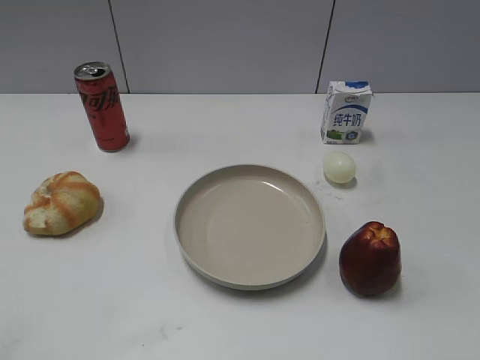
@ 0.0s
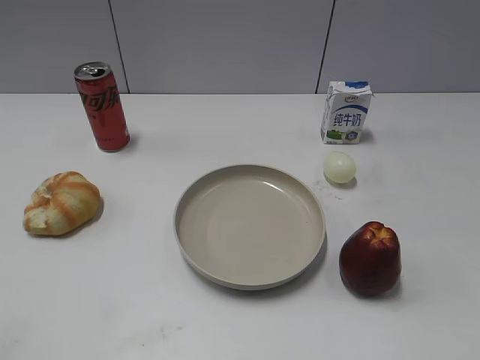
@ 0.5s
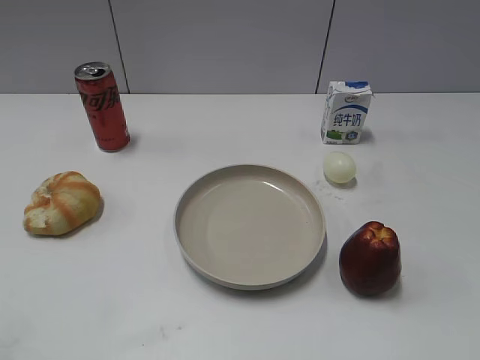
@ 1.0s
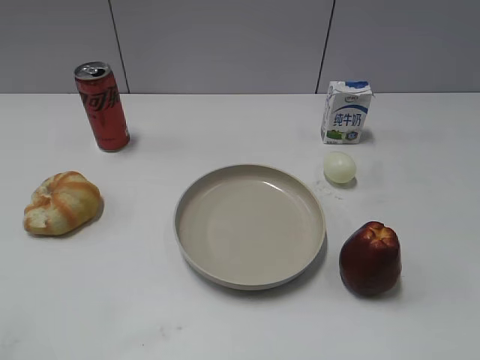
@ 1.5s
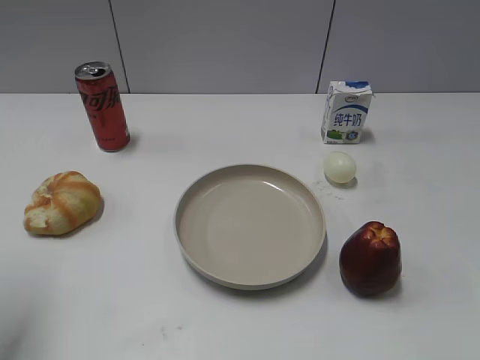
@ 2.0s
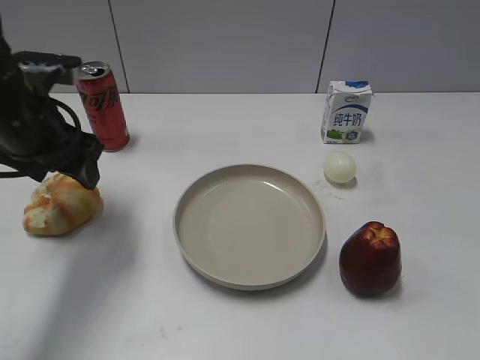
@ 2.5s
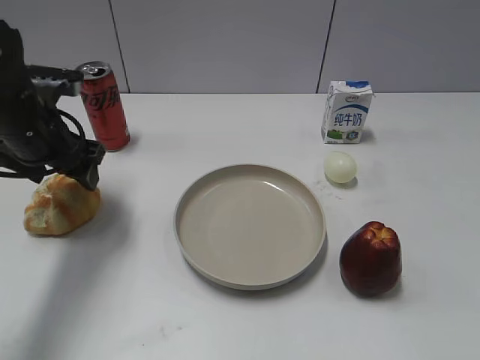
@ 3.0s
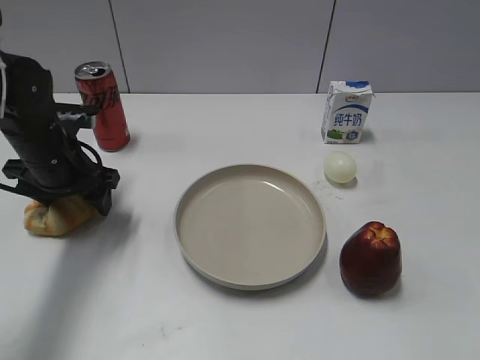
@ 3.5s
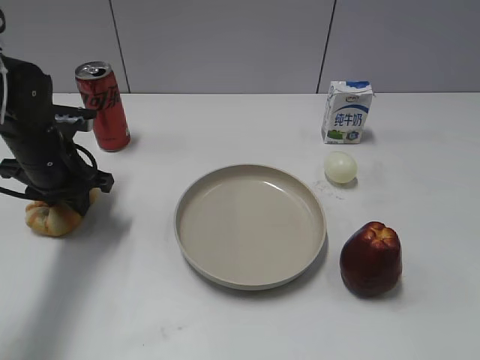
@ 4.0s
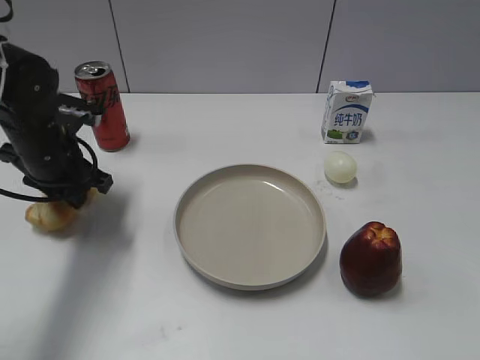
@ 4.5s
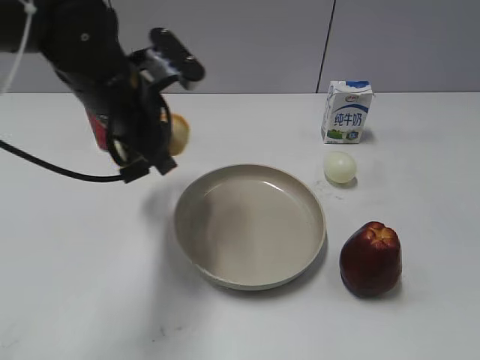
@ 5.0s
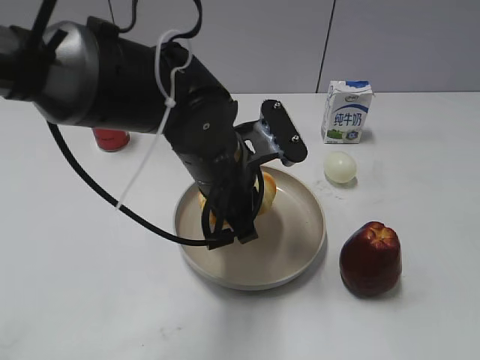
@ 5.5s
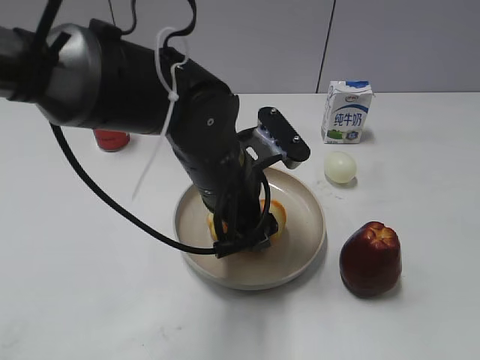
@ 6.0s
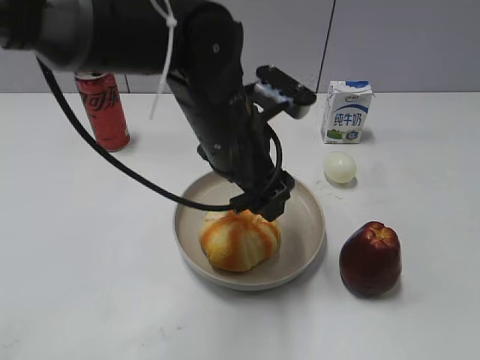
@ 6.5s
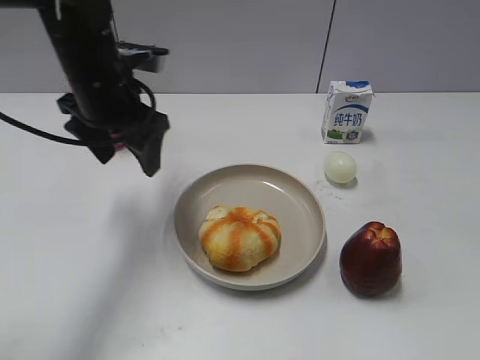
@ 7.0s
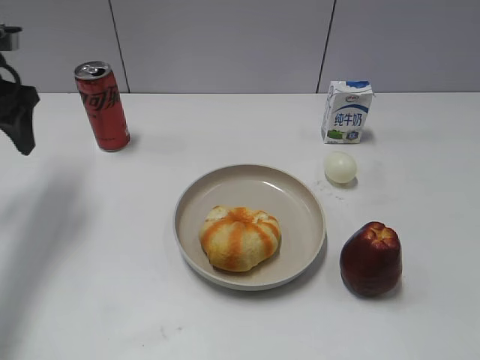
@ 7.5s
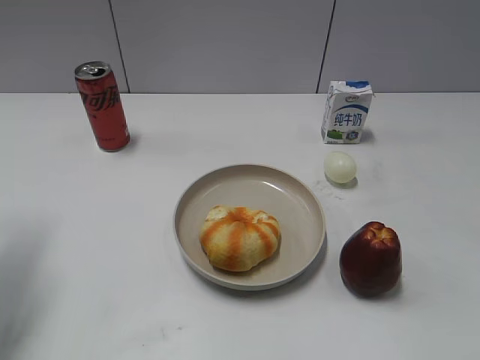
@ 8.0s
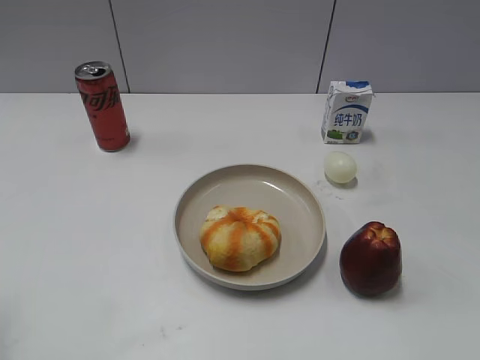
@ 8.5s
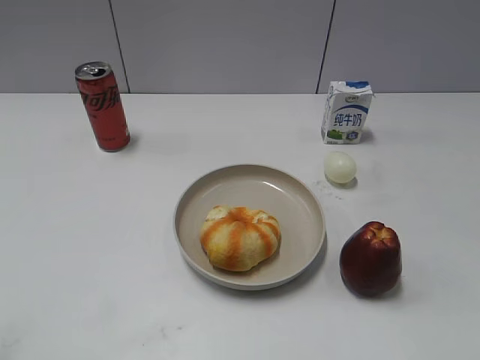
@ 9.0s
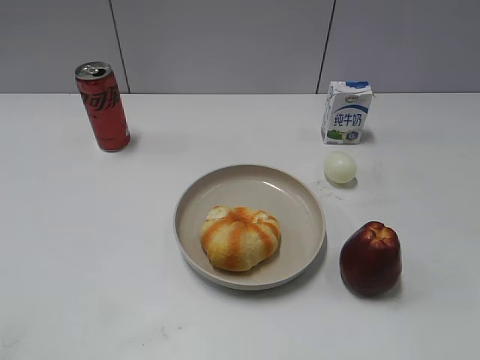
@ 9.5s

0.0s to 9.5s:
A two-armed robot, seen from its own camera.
Step, 1.5s to 4.0s: Grasp the round bread with left gripper.
Step, 4.5s to 6.5s: Place the round bread on the plate with left gripper.
2.0s to 4.0s: The left gripper moves forward, downward and to the right, some 30 cm.
4.0s to 5.5s: The left gripper goes about 20 cm to the right and backward, and closes up.
5.5s to 7.5s: The left gripper heads to the left and forward, covering about 25 cm, and opens up.
7.5s to 9.5s: The left gripper goes some 35 cm backward.

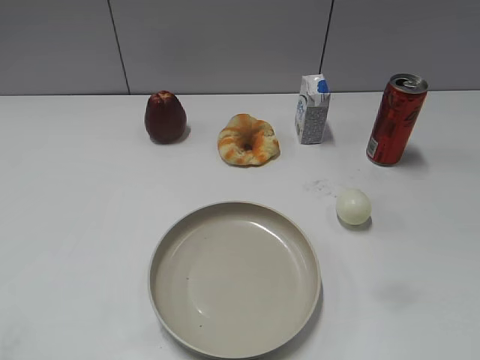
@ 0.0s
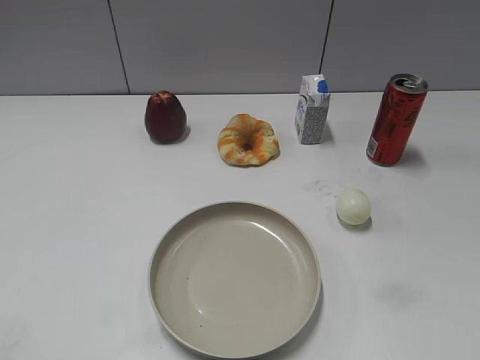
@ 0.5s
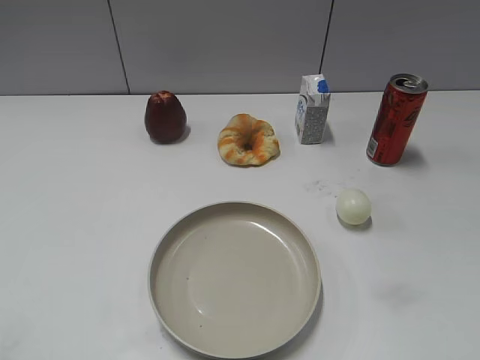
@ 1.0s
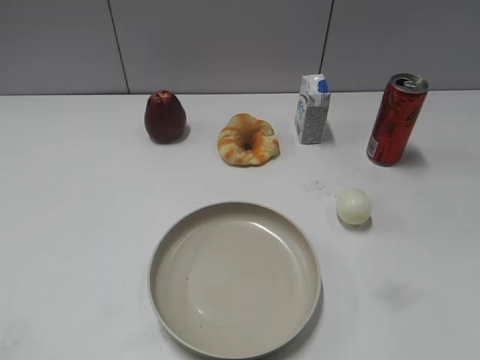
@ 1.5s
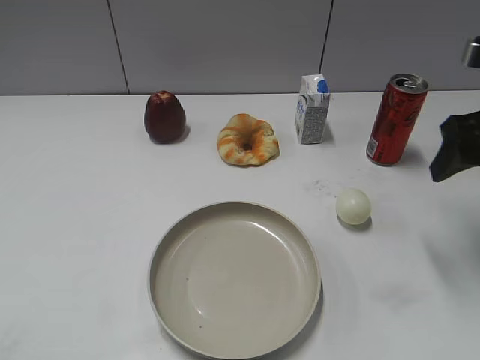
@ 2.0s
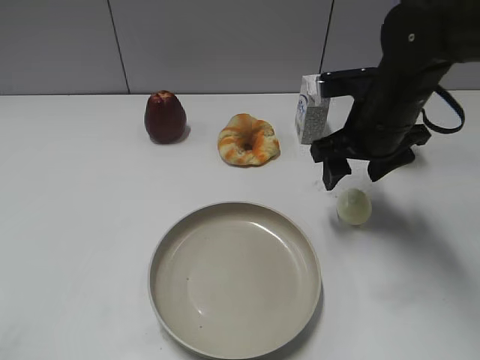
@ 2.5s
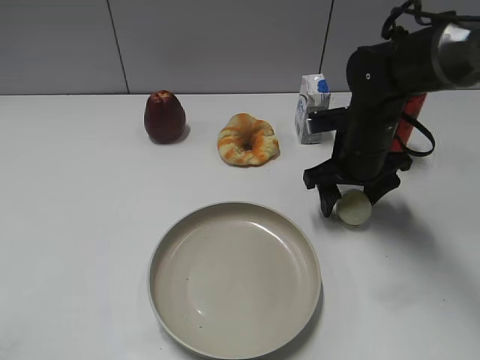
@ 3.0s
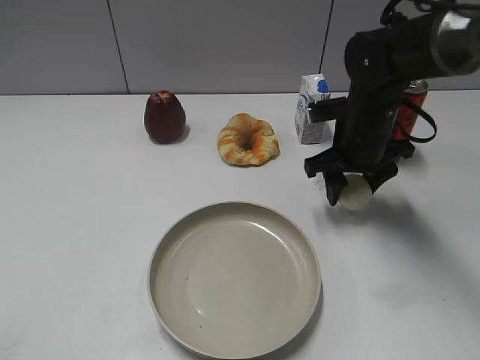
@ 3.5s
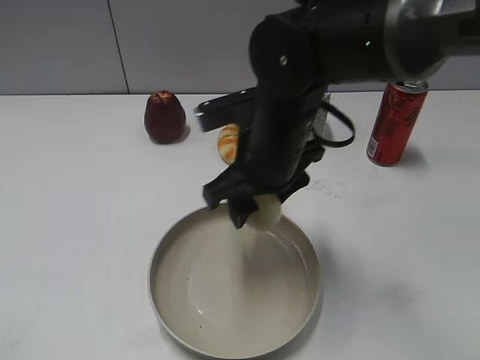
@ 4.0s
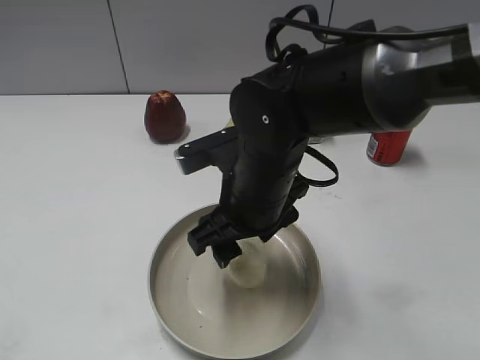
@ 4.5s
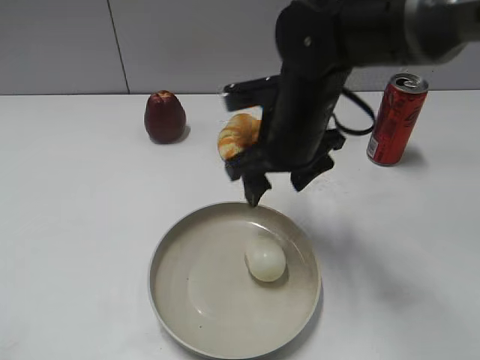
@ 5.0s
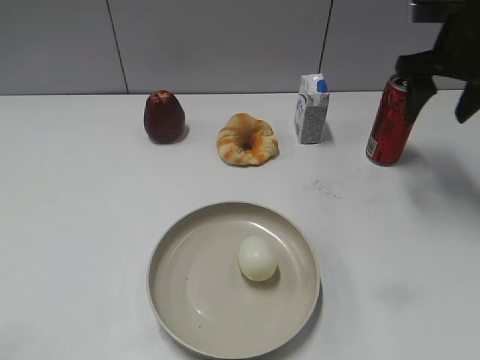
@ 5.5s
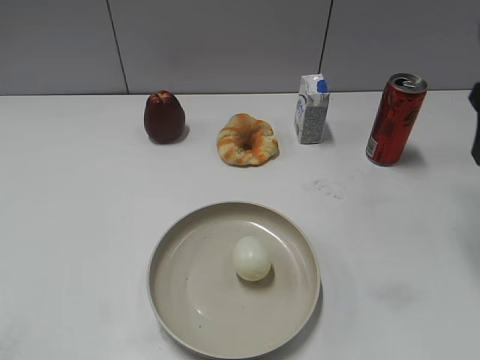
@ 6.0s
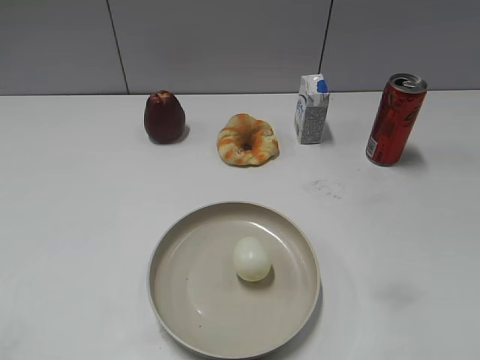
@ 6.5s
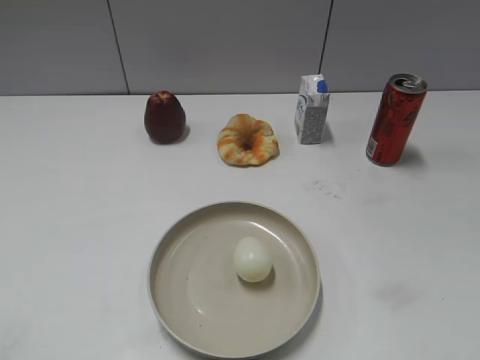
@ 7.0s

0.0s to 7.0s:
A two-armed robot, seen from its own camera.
Step, 1.0s to 3.0s: Grasp the egg with right gripper.
Step, 3.5s to 4.5s: Place the egg on the plate with right gripper.
2.0s to 3.5s: The right gripper shifts some 20 cm to the left, downward and forward, and closes its fingers.
3.5s to 5.0s: The right gripper heads to the left, upward and backward, covering roughly 10 cm, and opens up.
5.0s to 7.0s: The right gripper is displaced backward and to the right by approximately 35 cm.

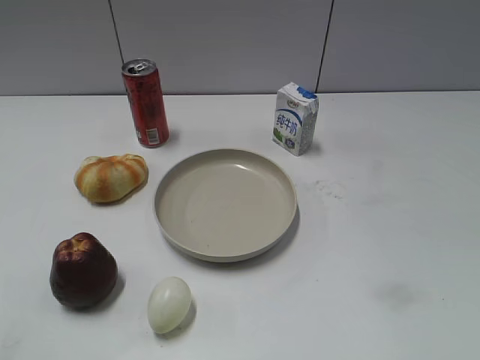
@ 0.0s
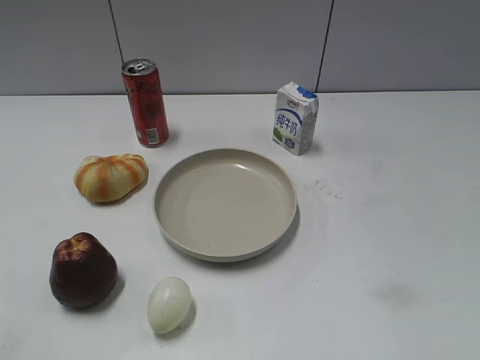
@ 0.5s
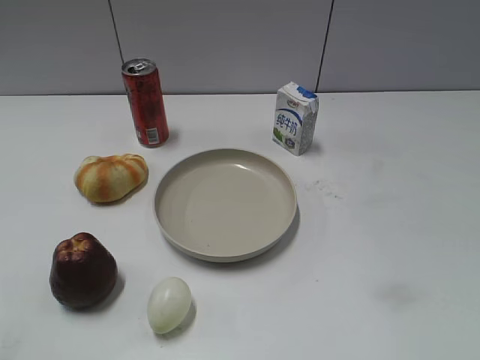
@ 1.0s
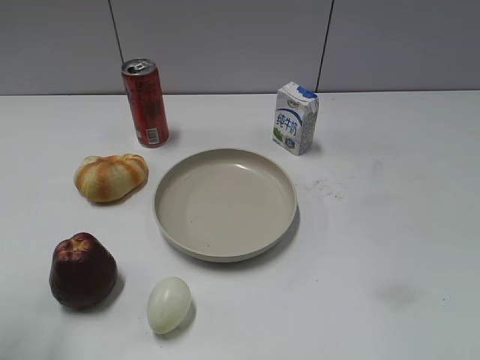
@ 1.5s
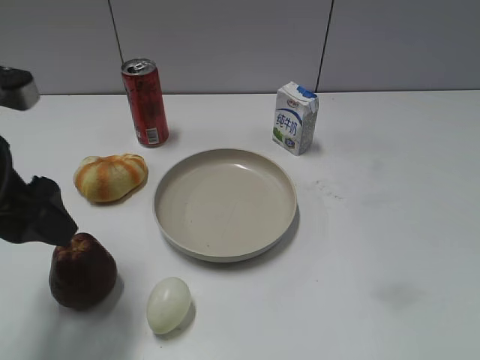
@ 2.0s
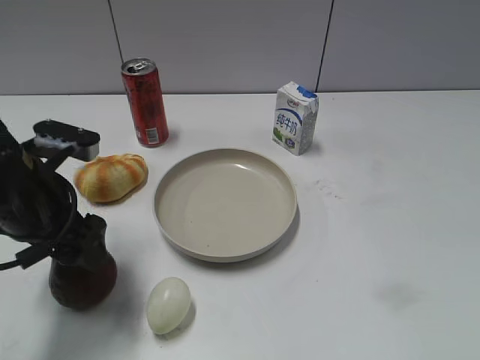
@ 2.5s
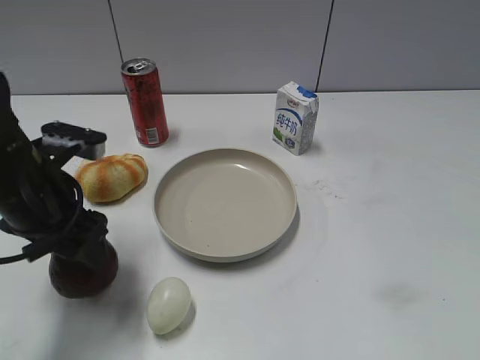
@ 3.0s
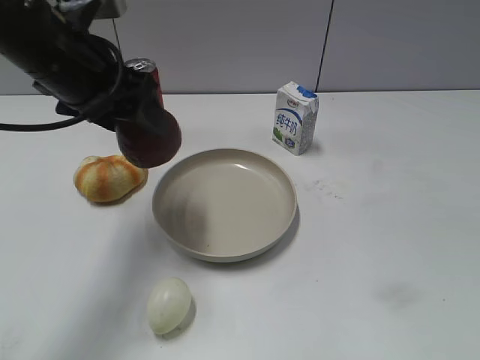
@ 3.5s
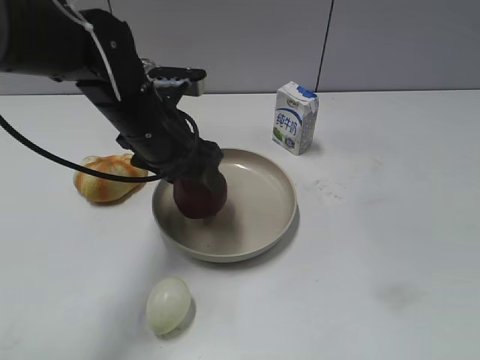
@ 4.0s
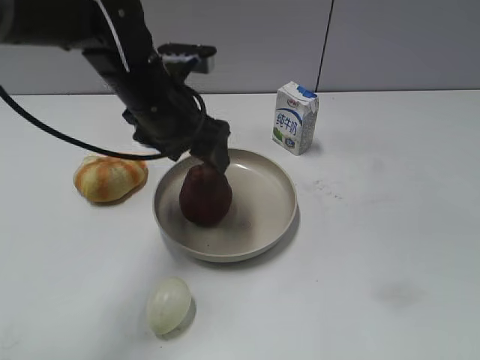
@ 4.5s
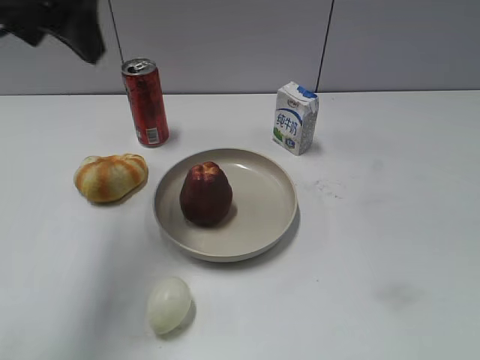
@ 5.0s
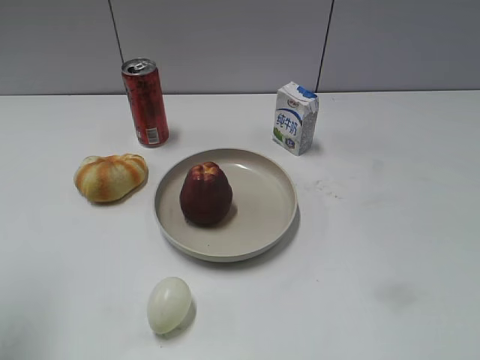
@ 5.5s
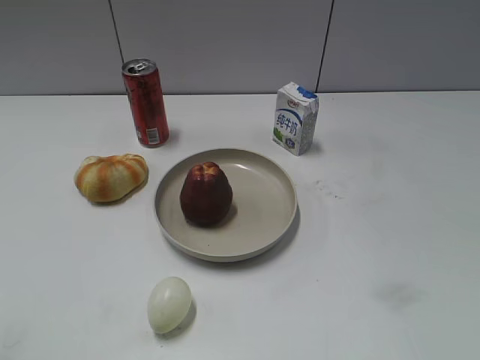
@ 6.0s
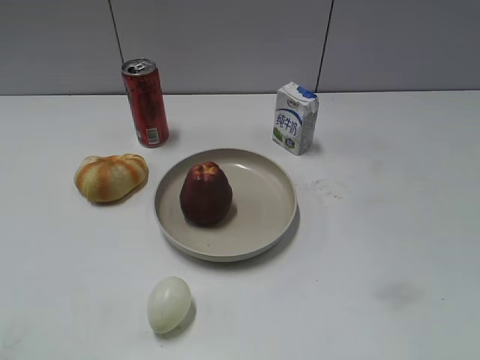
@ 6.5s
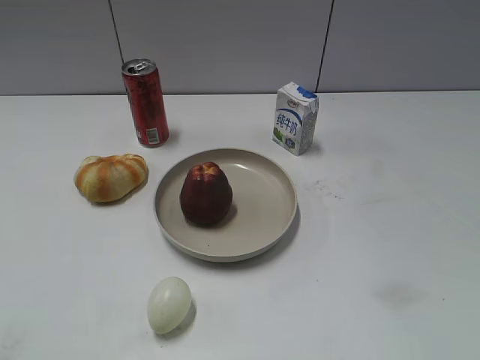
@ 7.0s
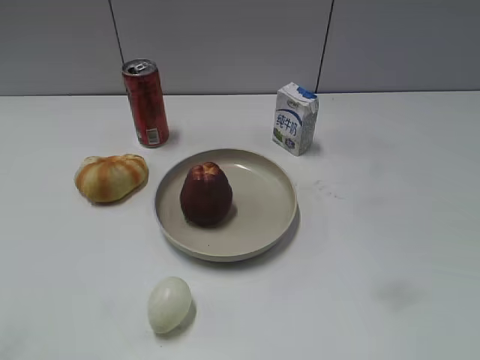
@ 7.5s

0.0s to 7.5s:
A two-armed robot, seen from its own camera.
Step, 0.0s to 2.5s: Grasp the apple with left gripper.
Step, 3.0s to 4.5s: Place the apple on the plate with left gripper.
2.0s to 4.0s: The left gripper goes roughly 20 cm to the right, forward and downward, and closes its fingers.
4.0s to 5.5s: The left gripper goes some 35 cm to the left, upward and backward, and opens up.

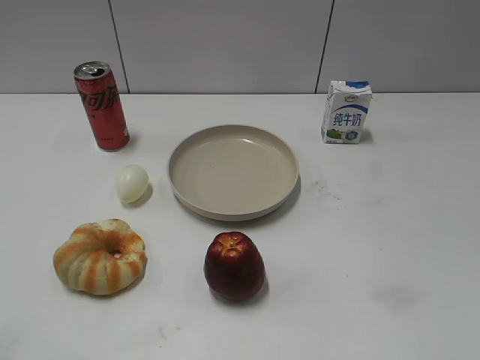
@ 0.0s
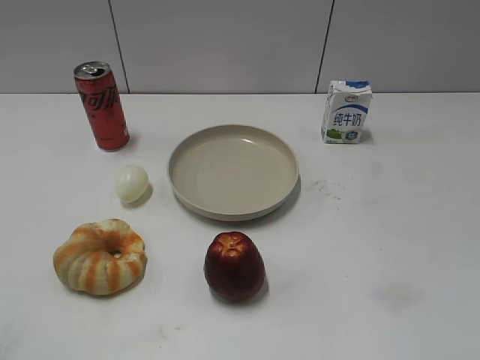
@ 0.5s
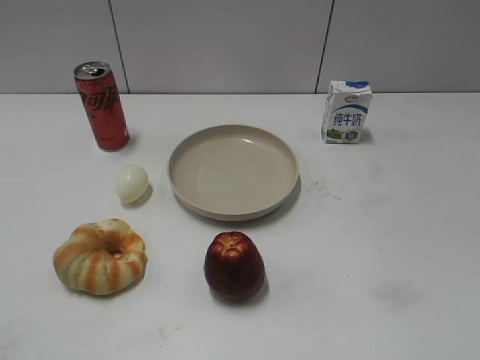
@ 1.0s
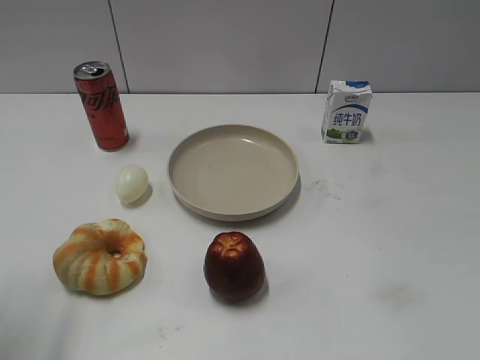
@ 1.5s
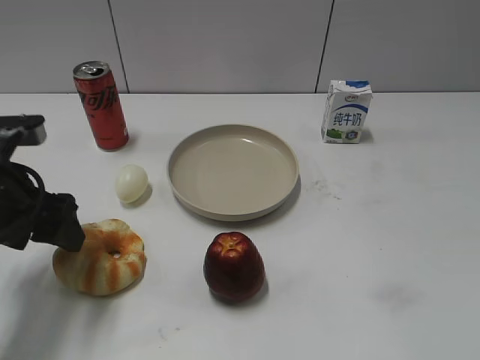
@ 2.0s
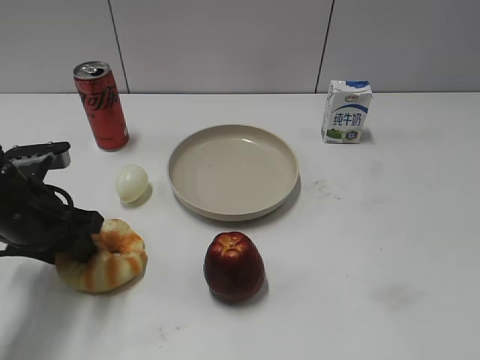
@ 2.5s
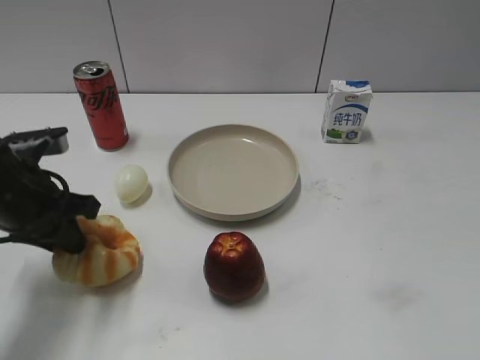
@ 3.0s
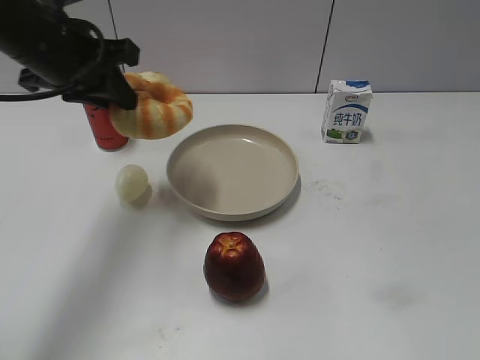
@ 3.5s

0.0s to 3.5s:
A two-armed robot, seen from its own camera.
Step, 1.0s to 2.5s: Grasp the round bread with left gripper.
2.0s to 3.5s: The left gripper goes roughly 15 cm upward, forward and to the right, and closes.
